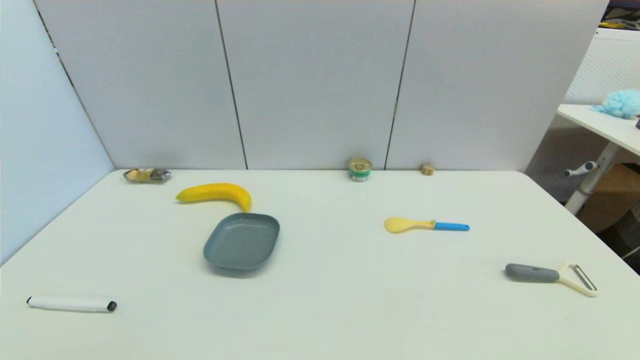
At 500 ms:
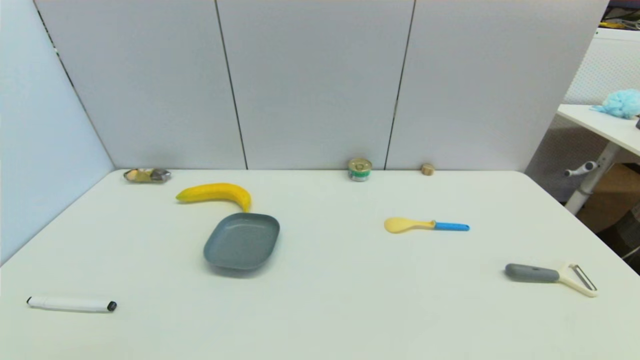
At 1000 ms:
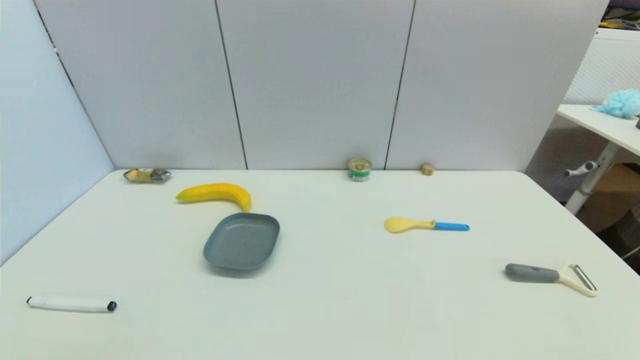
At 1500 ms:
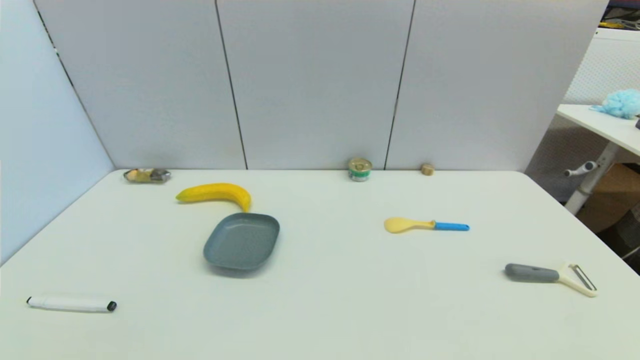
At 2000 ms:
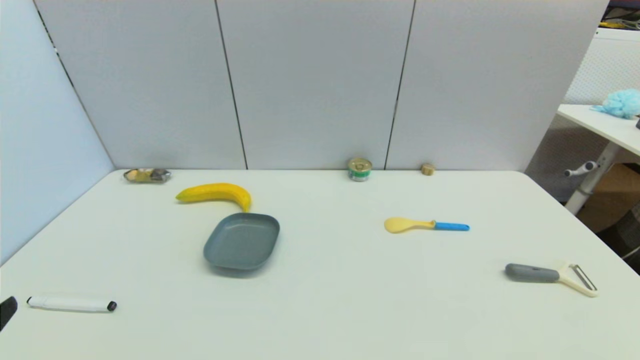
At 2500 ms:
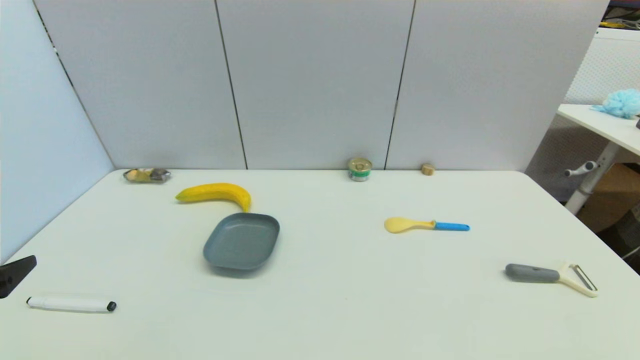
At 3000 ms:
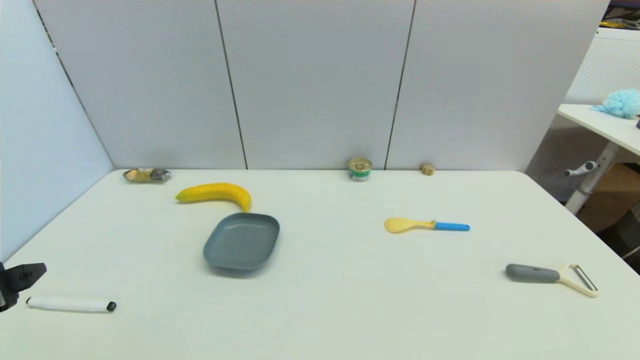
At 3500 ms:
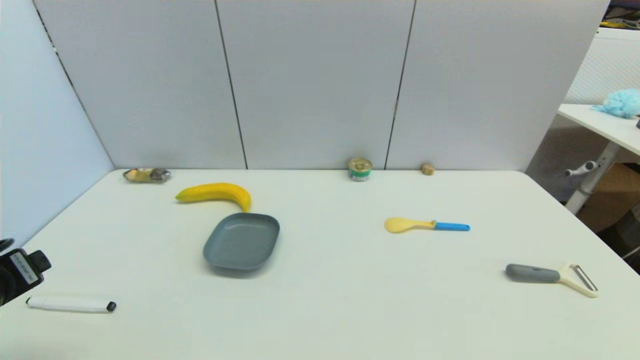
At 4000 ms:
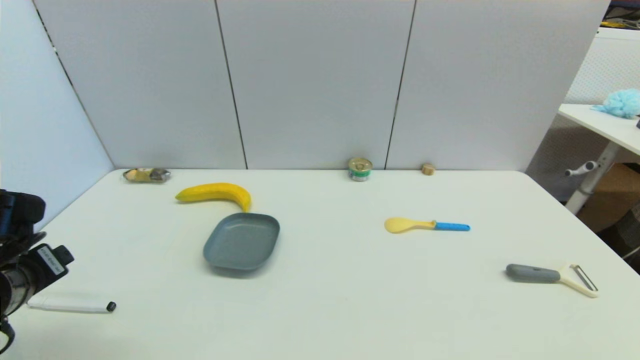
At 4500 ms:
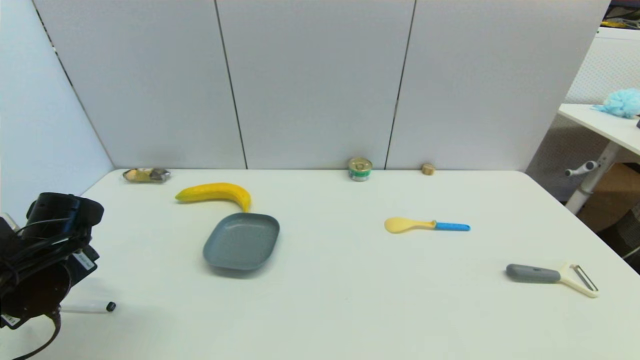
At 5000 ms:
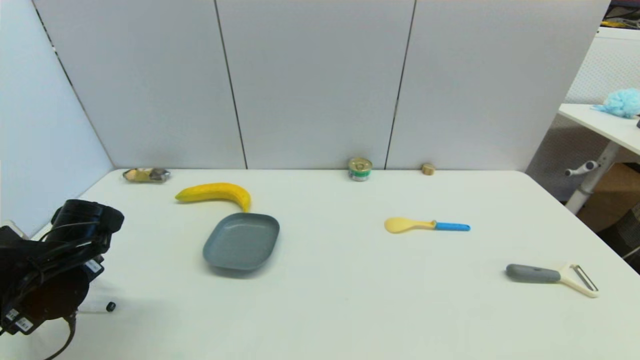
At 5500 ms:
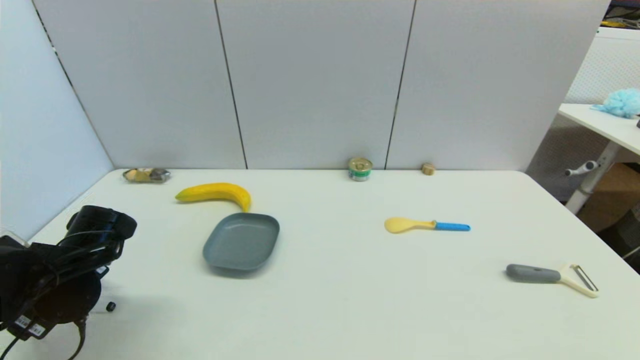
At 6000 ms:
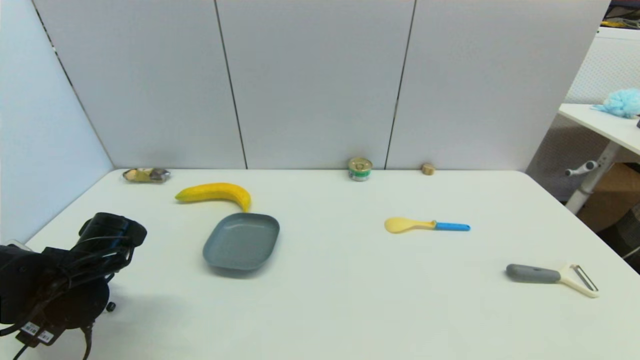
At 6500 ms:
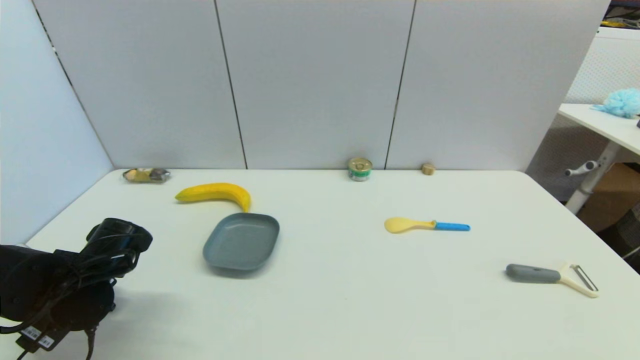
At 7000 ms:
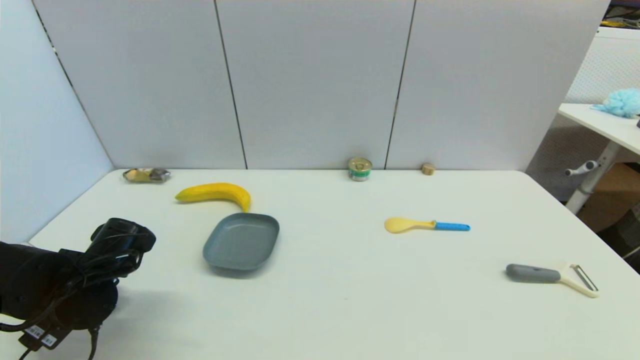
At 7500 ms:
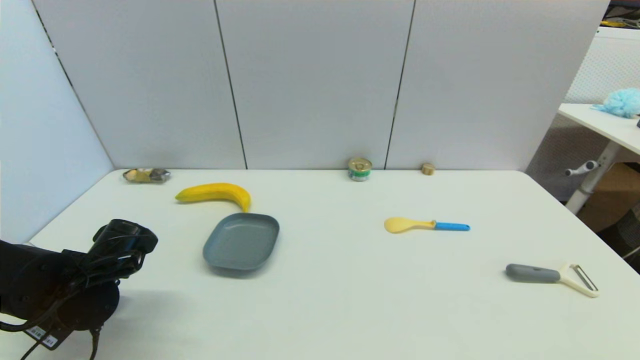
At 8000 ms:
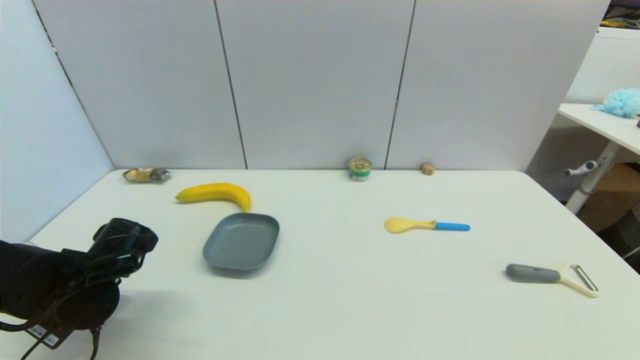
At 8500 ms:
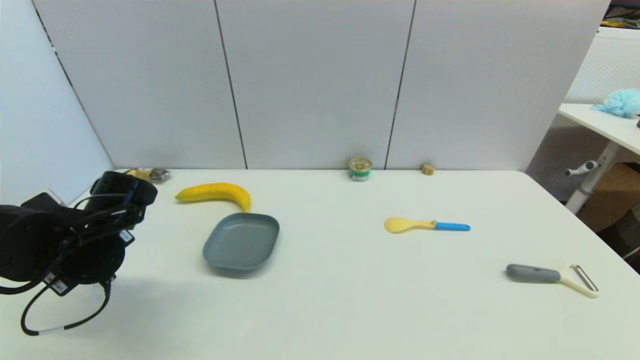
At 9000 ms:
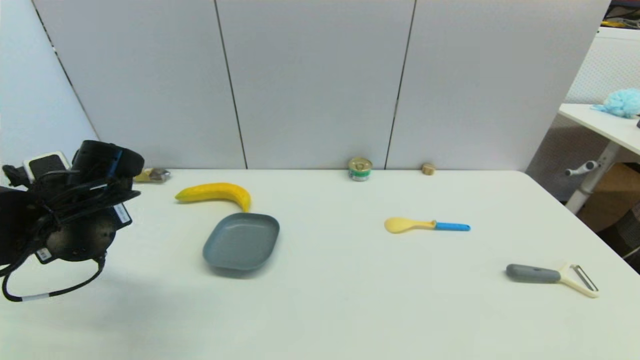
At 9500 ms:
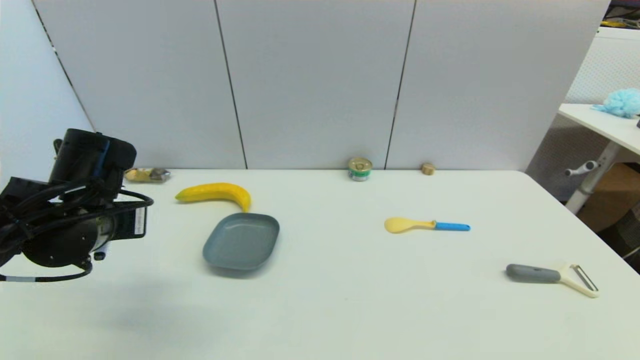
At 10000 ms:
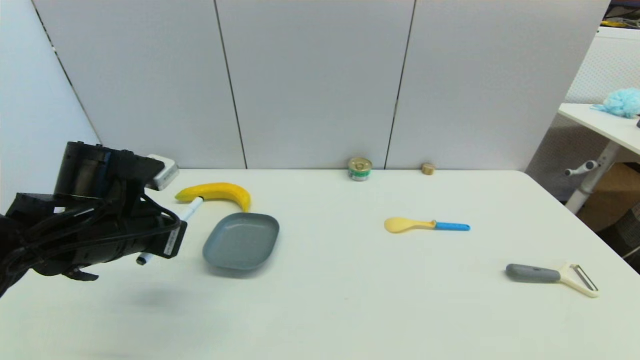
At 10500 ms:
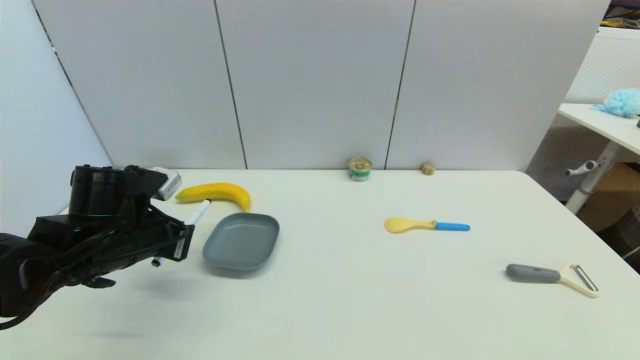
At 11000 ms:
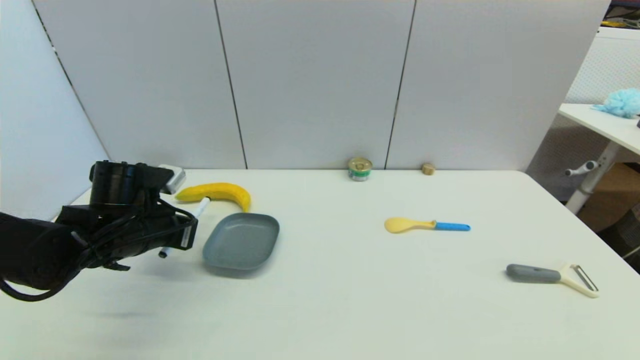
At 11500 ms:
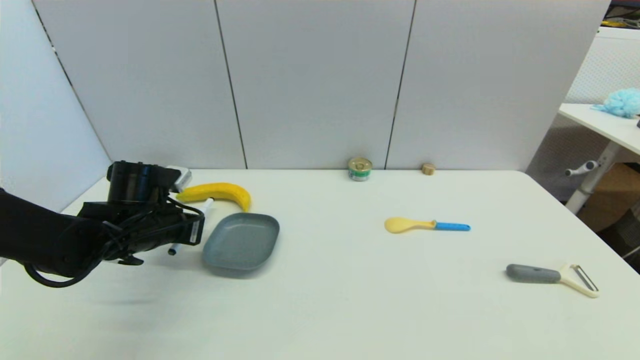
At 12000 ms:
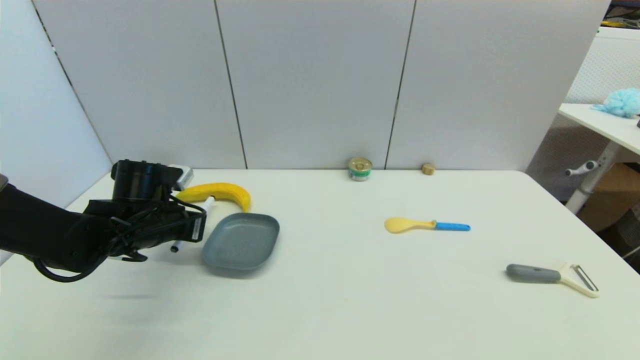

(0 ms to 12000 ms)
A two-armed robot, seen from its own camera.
Task of the whole recording: put the black marker in the designated position.
Step, 2000 ms - 7500 ms: Grasp the Marker pen with left gripper.
2000 ms - 4000 ms: The left gripper shifts some 15 cm forward.
4000 ms - 6000 ms: The left gripper travels downward by some 5 cm.
6000 ms - 8000 ms: The left gripper closes.
8000 ms - 10000 ms: The left gripper goes roughly 10 cm upward.
10000 ms - 12000 ms: The left gripper shifts about 10 cm forward and downward.

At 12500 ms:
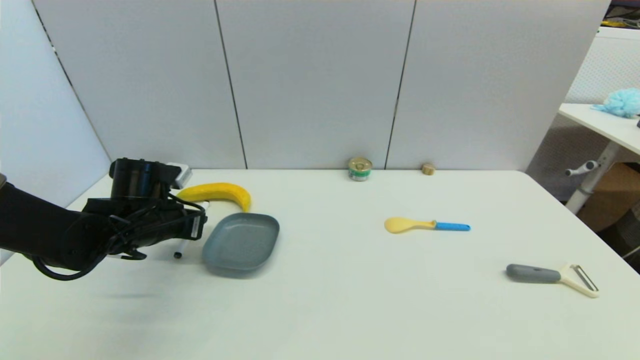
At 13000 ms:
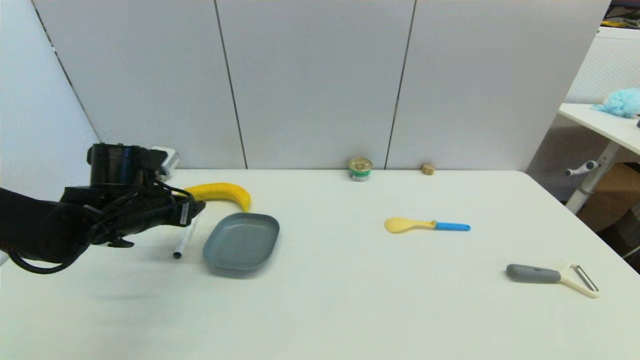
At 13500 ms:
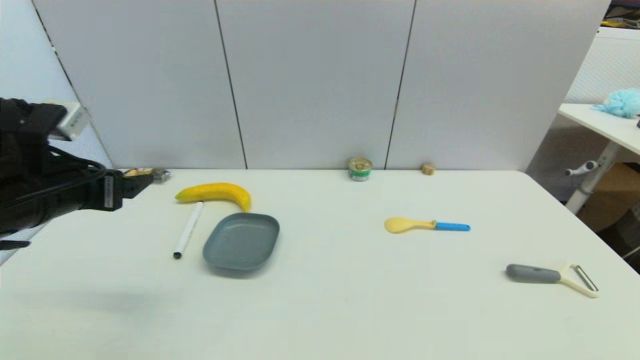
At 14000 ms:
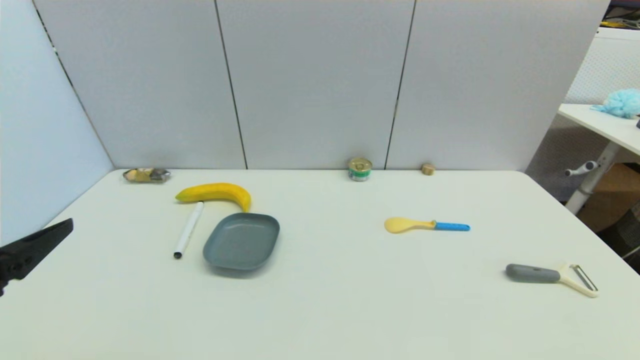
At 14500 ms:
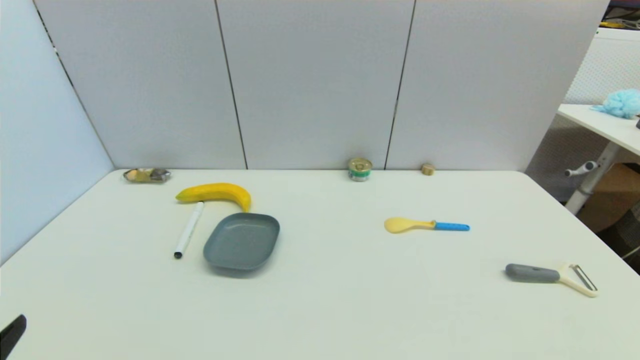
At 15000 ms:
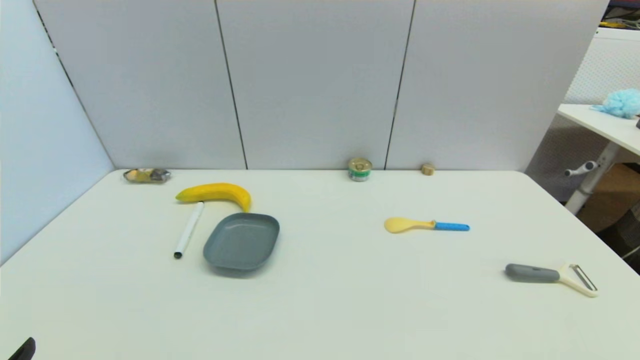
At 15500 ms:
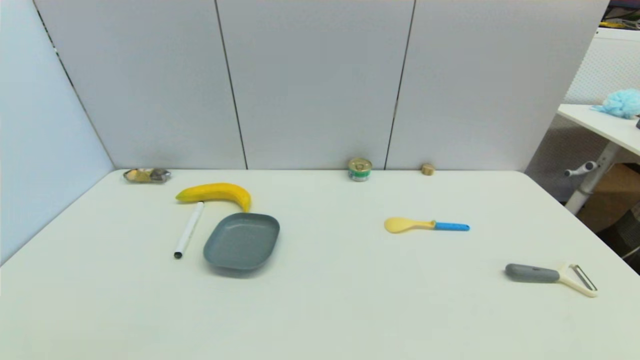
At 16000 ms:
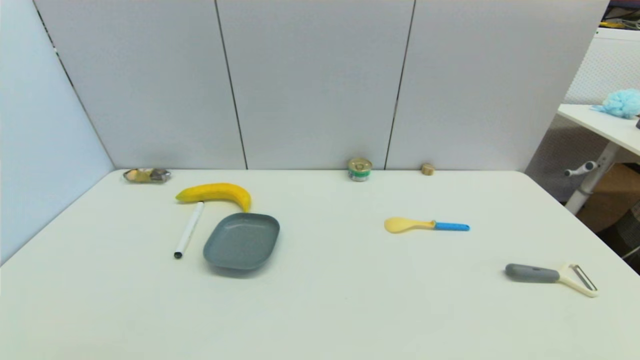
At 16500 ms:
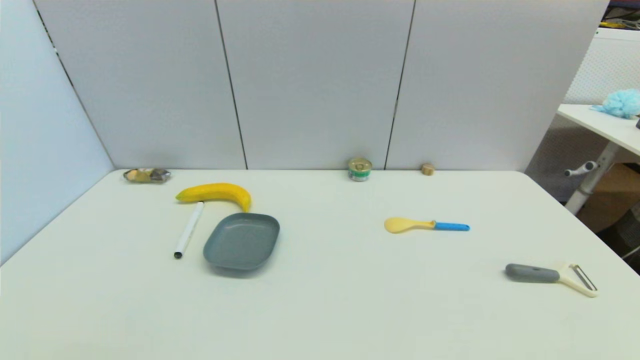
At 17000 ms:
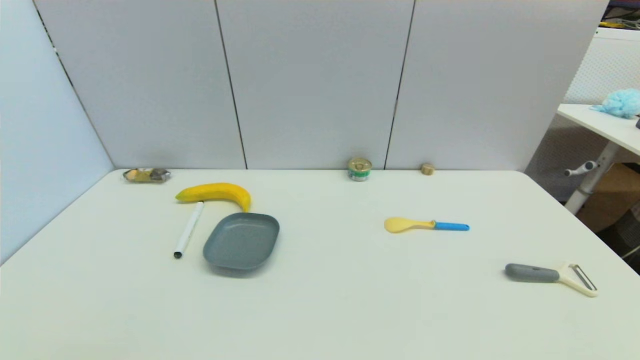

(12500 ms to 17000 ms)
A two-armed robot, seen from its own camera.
Task of the whole recording: put the black marker in the designated position.
12500 ms - 14500 ms: The left gripper shifts about 30 cm backward, and opens its fingers.
